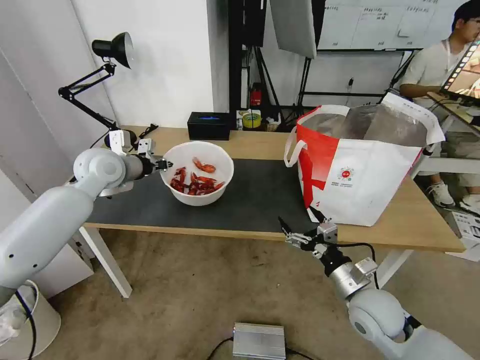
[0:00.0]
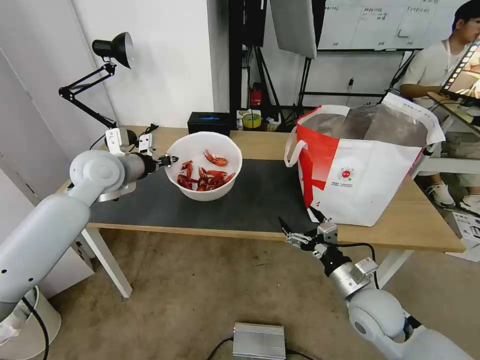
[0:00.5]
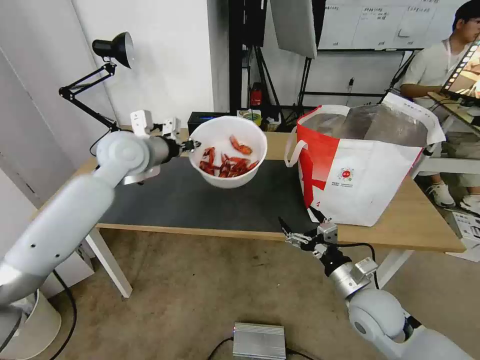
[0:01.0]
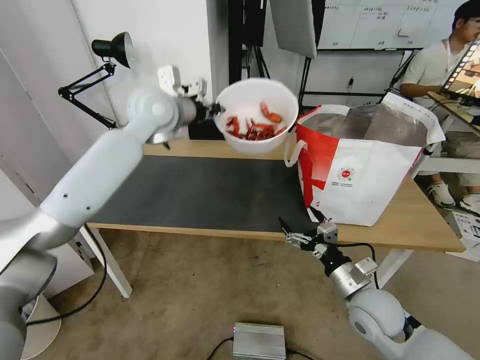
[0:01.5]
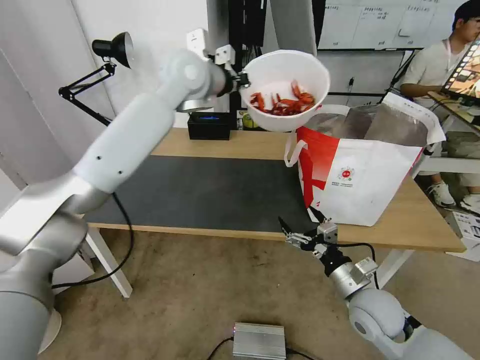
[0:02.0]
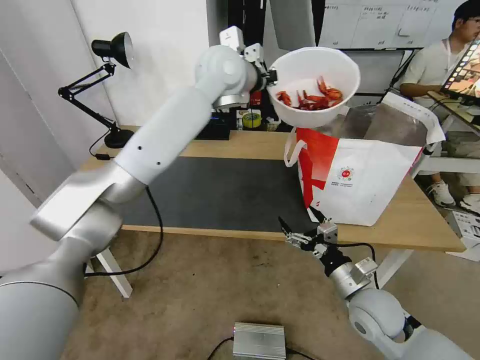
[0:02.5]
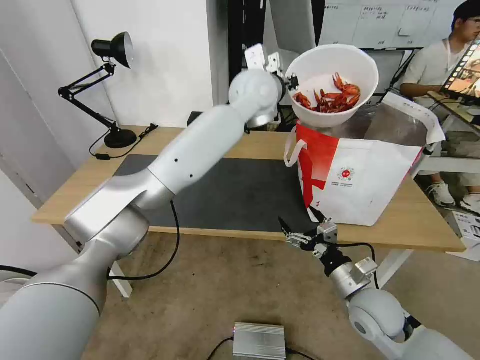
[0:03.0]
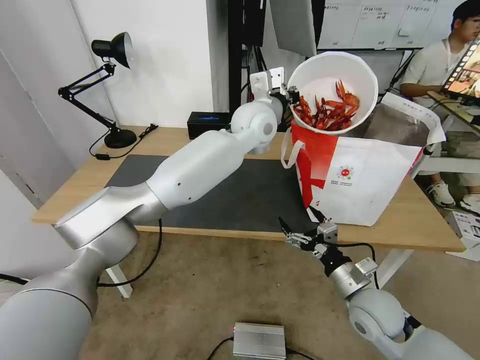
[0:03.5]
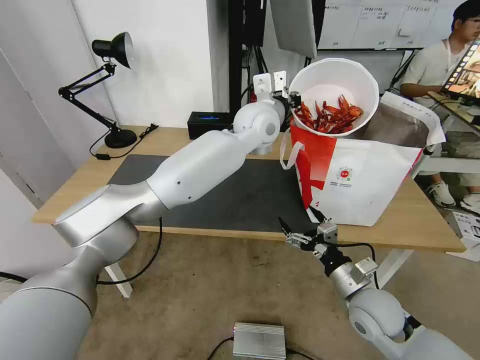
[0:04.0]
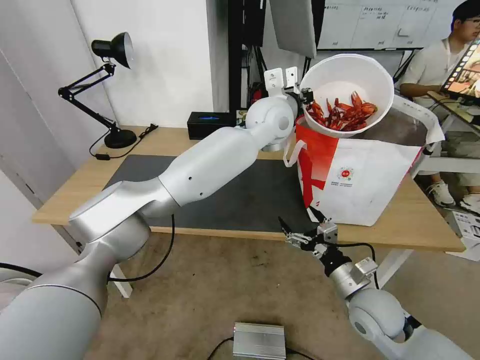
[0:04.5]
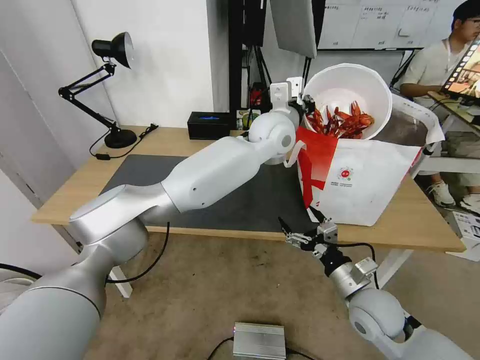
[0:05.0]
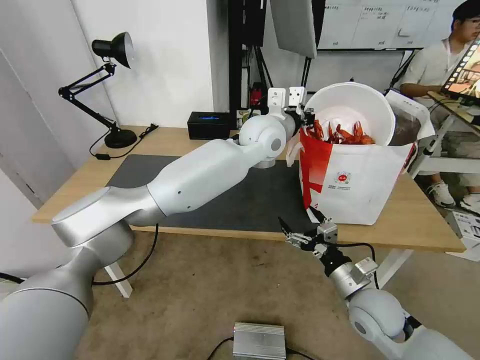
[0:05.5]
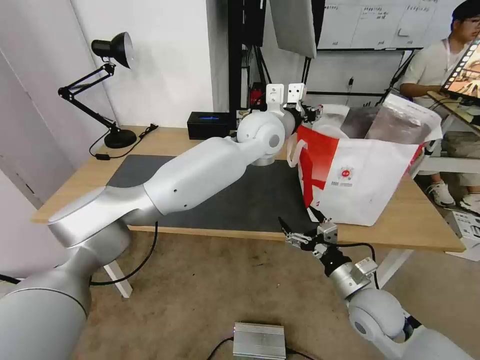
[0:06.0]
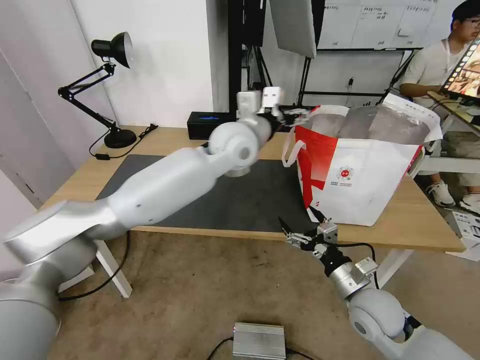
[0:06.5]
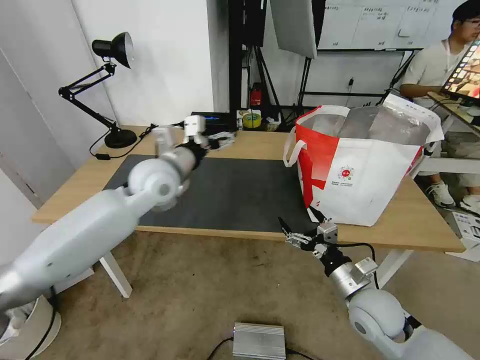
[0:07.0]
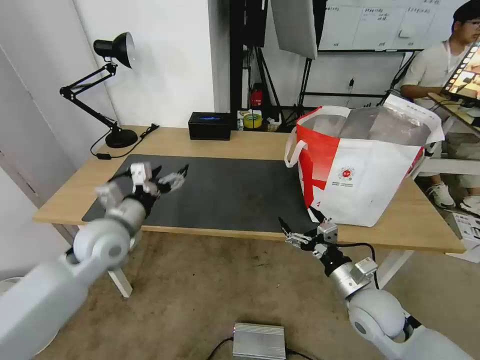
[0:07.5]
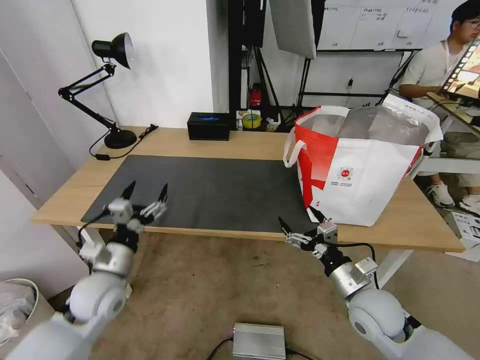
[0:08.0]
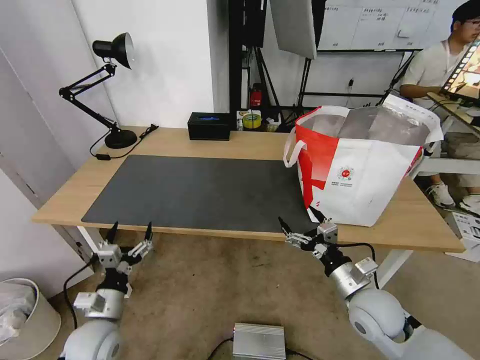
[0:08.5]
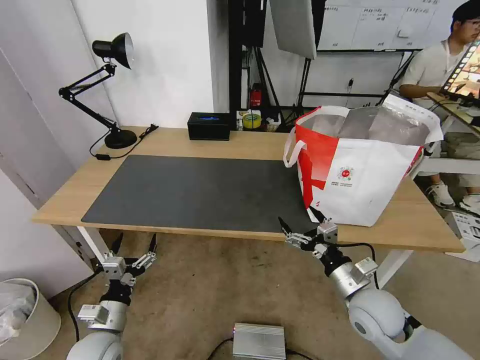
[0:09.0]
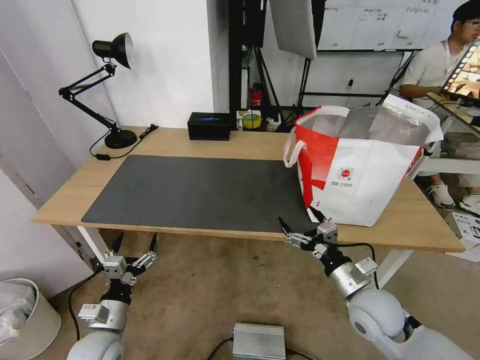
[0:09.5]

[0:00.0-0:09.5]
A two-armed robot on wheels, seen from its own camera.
Task of the whole recording: Pick up the trash from the table and place it into the takeout bag.
0:00.0 to 0:02.0: The left gripper is displaced to the right and upward by some 25 cm.
0:02.0 to 0:04.0: The left gripper travels to the right and downward by roughly 15 cm.
0:04.0 to 0:05.5: The grippers stay close to where they were, moving slightly.
0:05.5 to 0:07.5: The left gripper goes about 40 cm to the left, backward and downward, and opens up.
0:07.5 to 0:09.5: The left gripper is displaced downward and backward by approximately 25 cm.

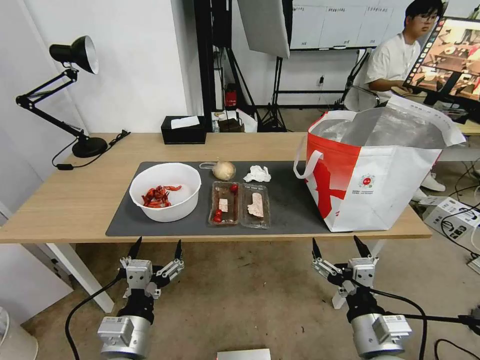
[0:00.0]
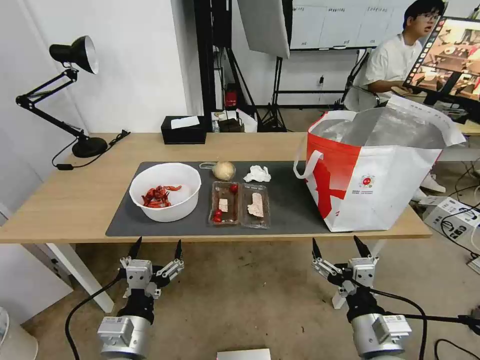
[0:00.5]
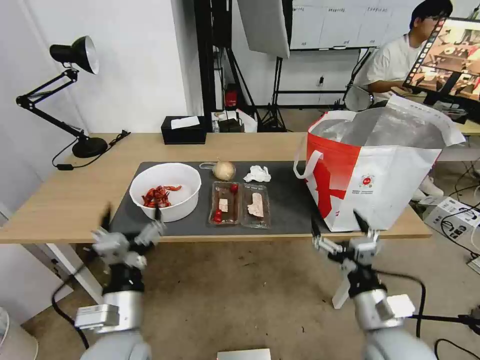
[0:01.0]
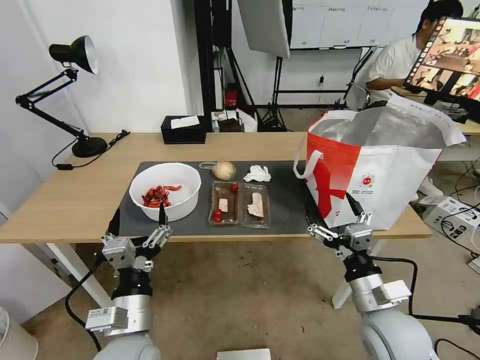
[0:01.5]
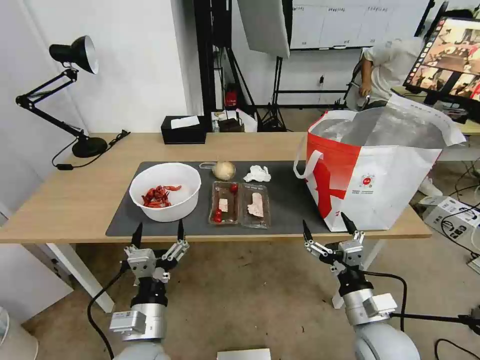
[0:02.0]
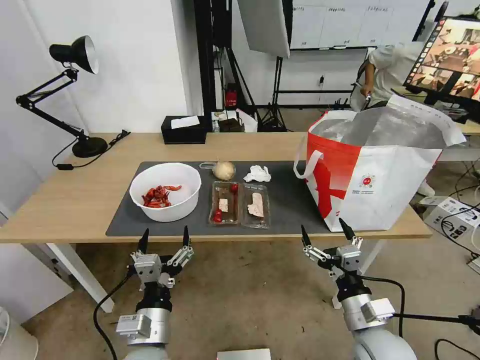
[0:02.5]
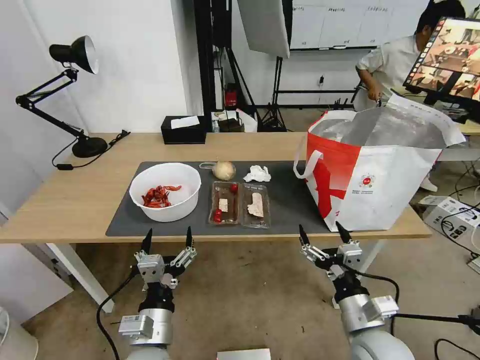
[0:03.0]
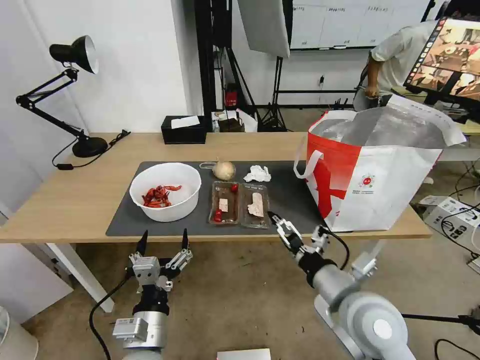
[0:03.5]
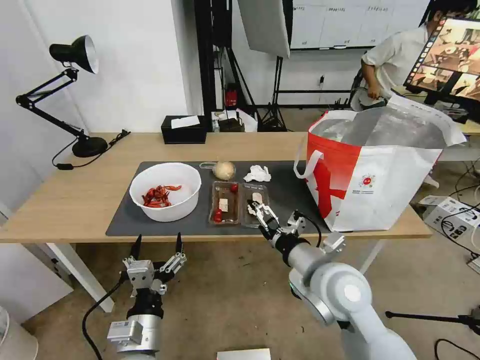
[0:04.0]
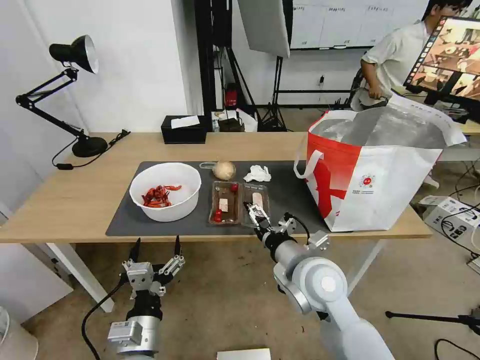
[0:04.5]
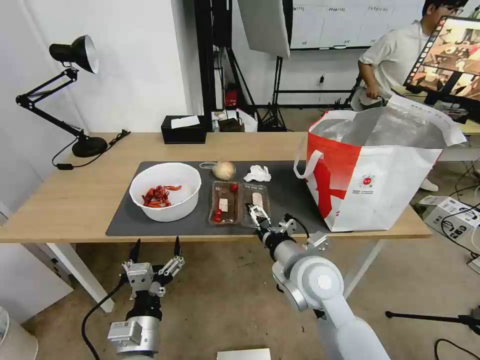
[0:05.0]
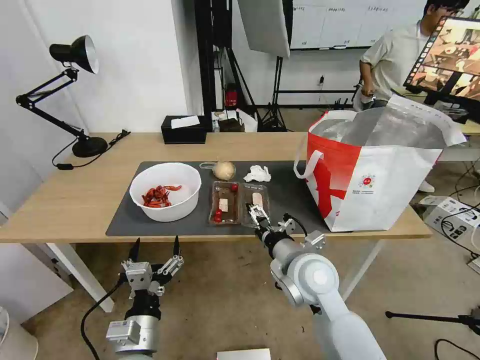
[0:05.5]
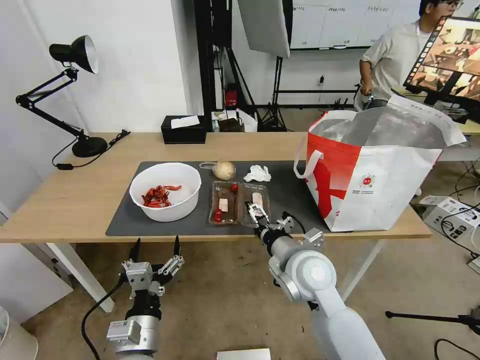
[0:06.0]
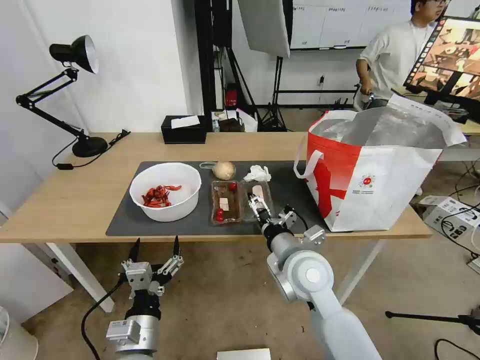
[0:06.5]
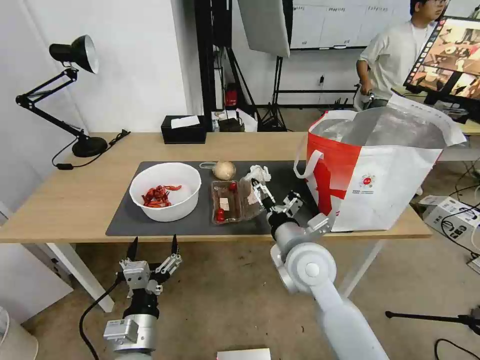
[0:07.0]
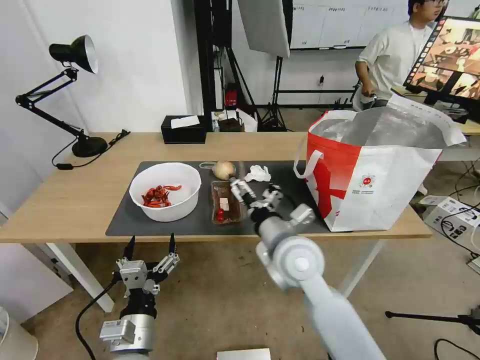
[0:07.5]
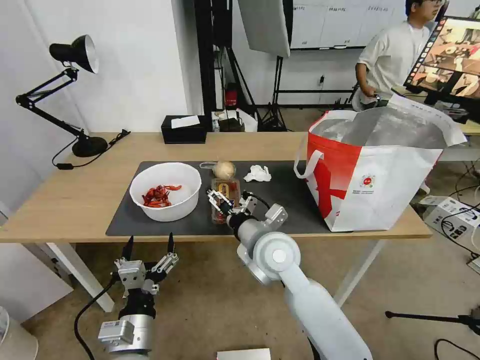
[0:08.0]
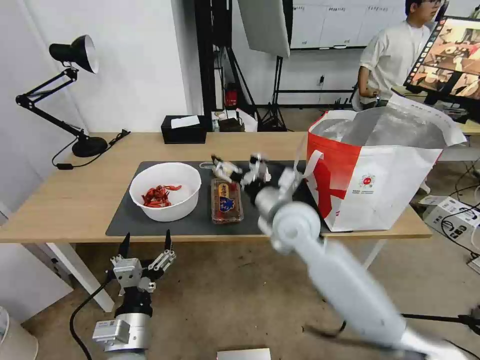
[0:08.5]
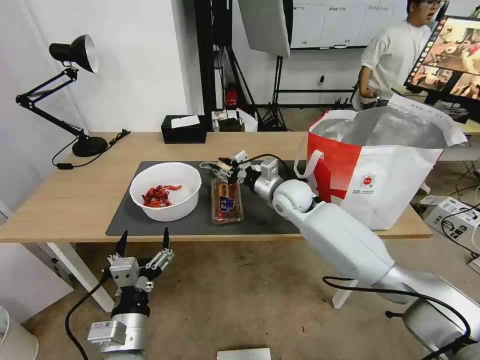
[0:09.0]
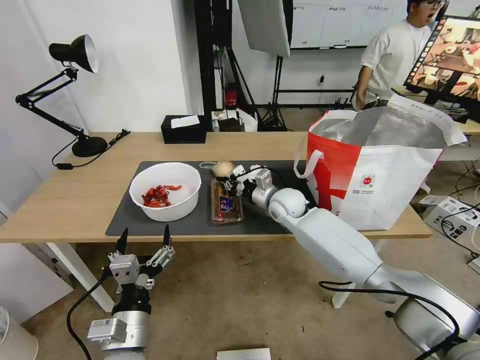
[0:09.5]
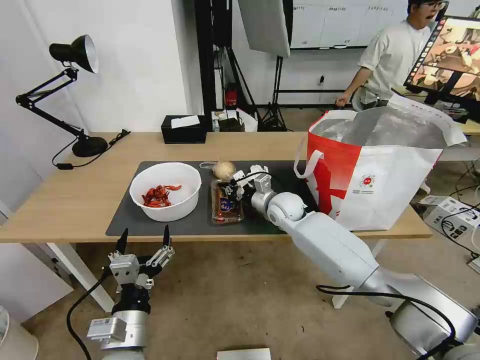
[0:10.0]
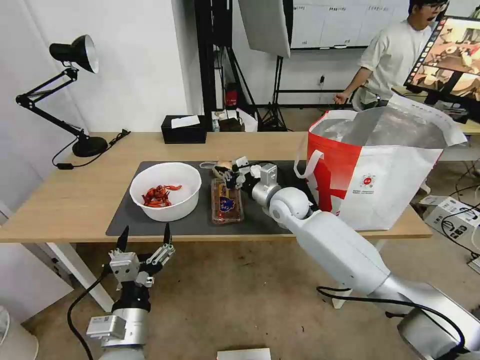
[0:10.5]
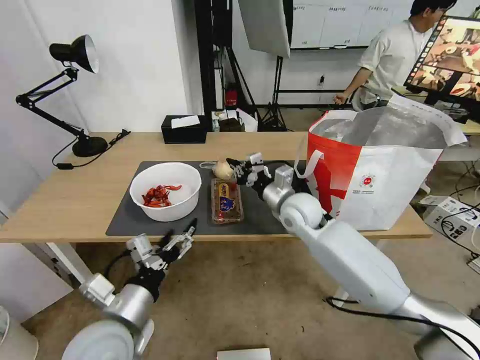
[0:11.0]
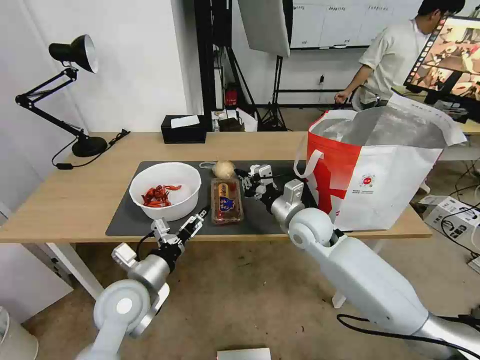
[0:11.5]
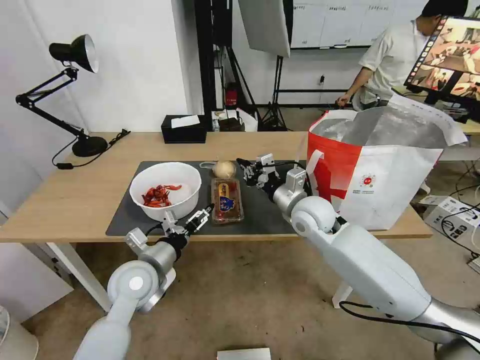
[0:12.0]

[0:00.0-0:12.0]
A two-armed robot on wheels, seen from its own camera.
Task of the whole recording: Pick up the trash from the table and place it into the takeout bag.
0:02.0 to 0:04.0: The right gripper shifts about 15 cm upward, to the left and forward.
0:04.0 to 0:06.0: The right gripper changes place by about 5 cm.
0:06.0 to 0:08.0: The right gripper is displaced to the left by some 5 cm.
0:08.0 to 0:10.0: The right gripper moves forward, some 20 cm, and closes.
0:10.0 to 0:12.0: The right gripper is displaced backward and upward by approximately 10 cm, while the left gripper travels forward by some 15 cm.

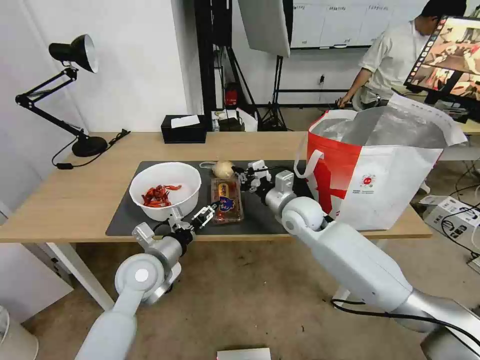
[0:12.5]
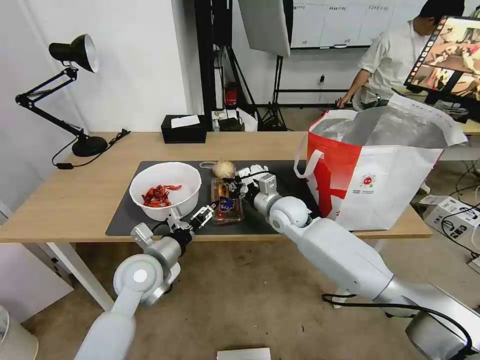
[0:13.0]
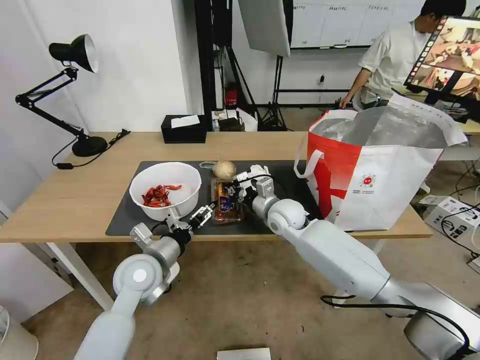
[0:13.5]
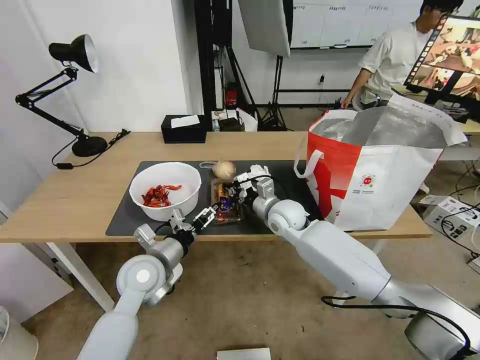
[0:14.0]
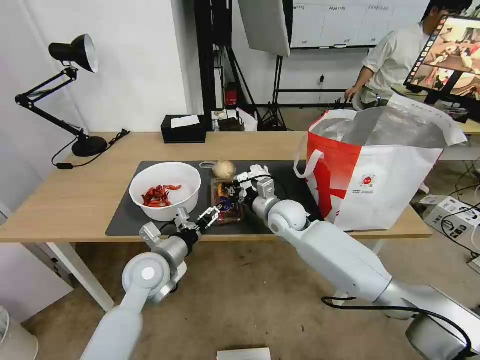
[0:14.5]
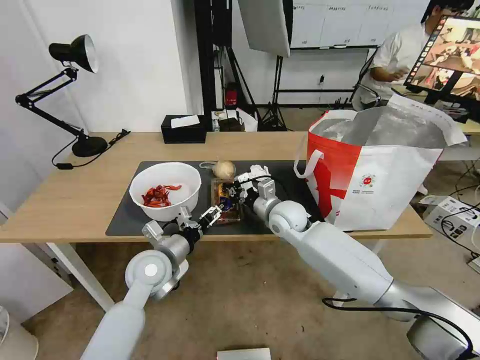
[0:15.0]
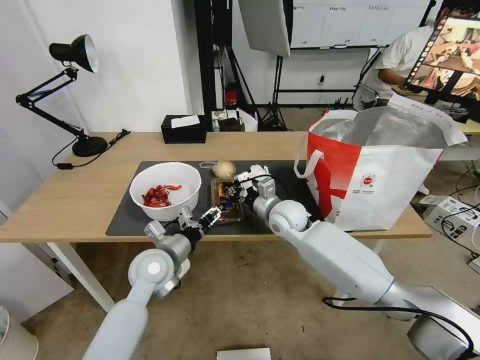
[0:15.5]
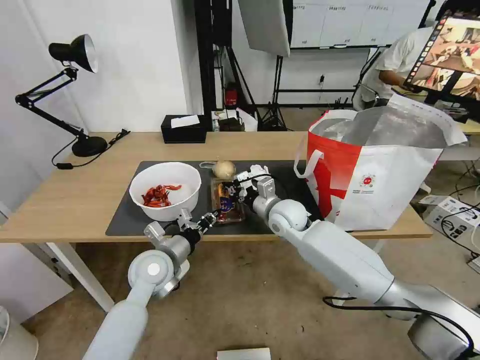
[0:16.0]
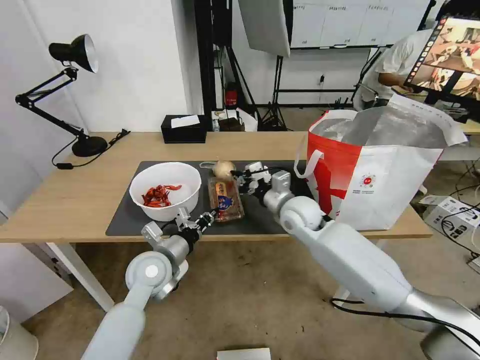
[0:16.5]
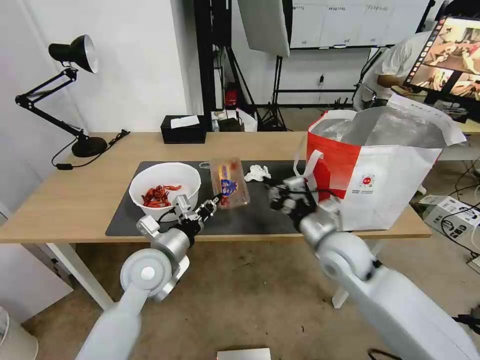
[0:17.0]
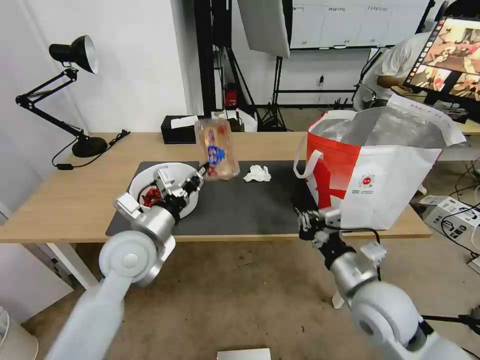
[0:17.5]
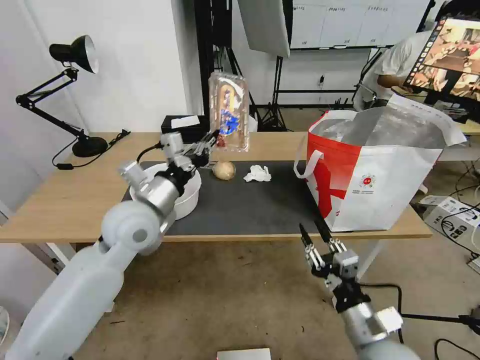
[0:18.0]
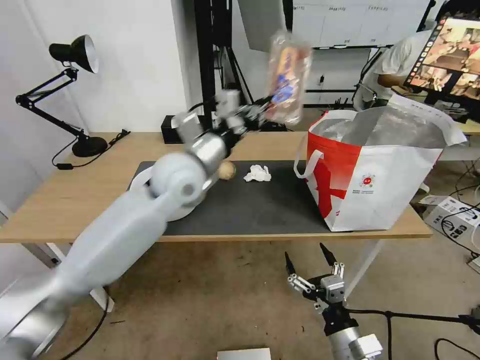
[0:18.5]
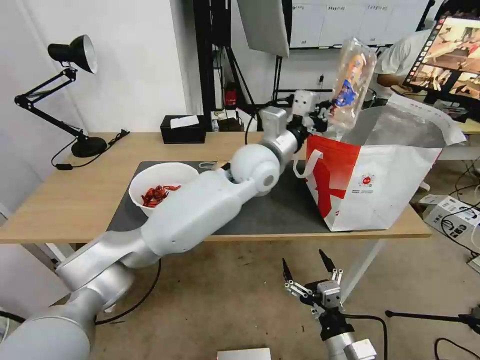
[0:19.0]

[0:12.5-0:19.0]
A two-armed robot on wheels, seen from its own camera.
Task of the whole recording: Pick up the trash from the table and place it into the takeout bag.
0:12.5 to 0:14.5: There are only small adjustments of the grippers.
0:14.5 to 0:17.0: The left gripper closes up. The right gripper is displaced backward and to the right by roughly 15 cm.
0:17.0 to 0:19.0: The right gripper shifts approximately 25 cm backward and downward, and opens up. Meanwhile the left gripper heads to the right, forward and upward, covering roughly 30 cm.
